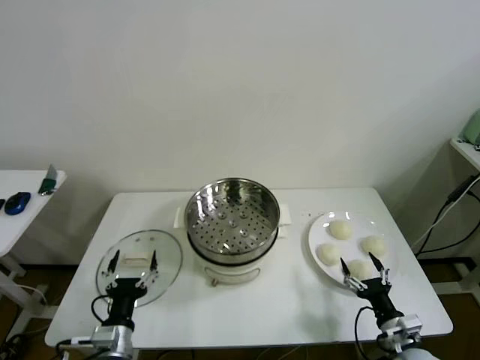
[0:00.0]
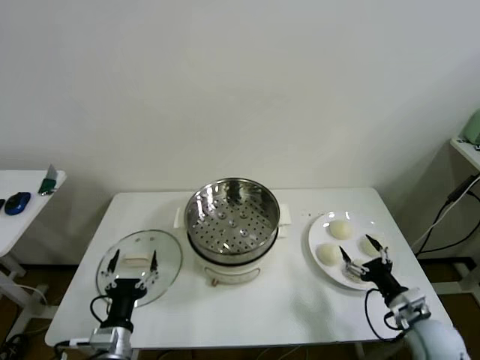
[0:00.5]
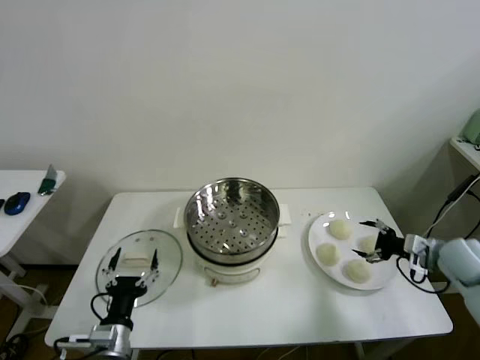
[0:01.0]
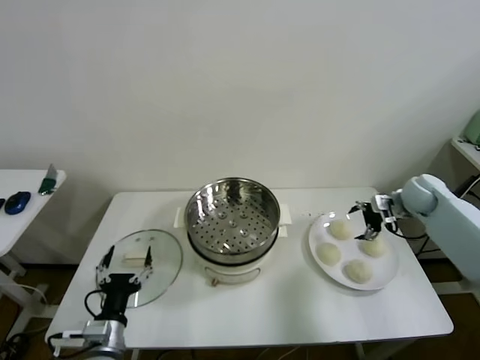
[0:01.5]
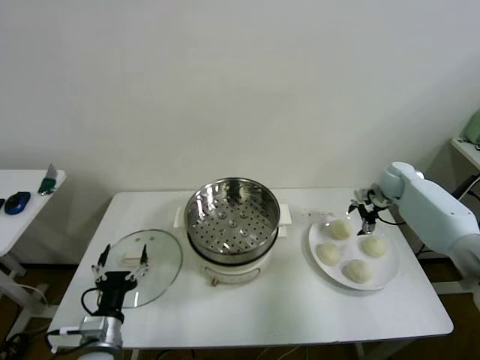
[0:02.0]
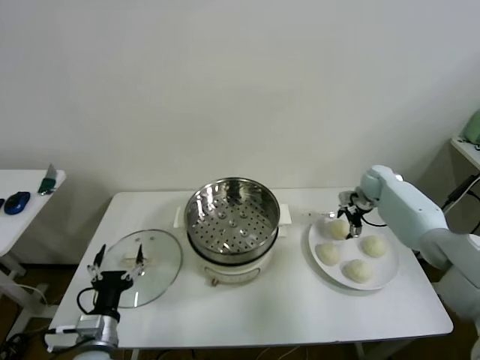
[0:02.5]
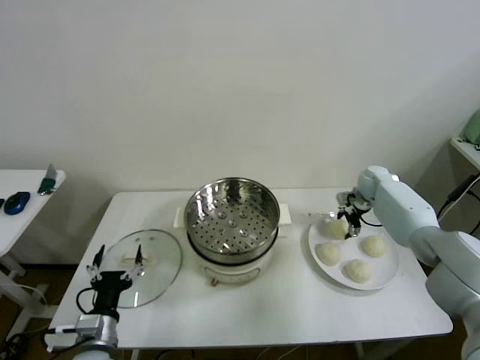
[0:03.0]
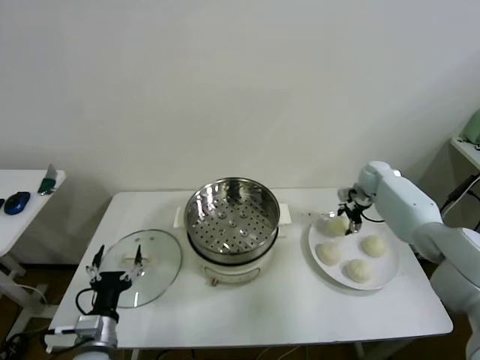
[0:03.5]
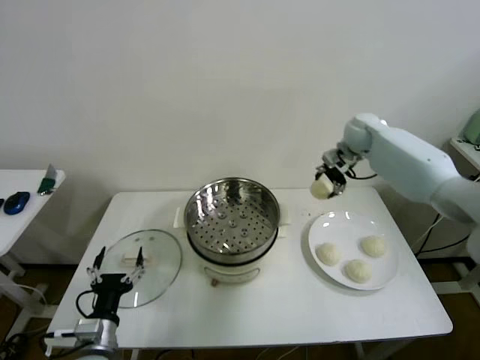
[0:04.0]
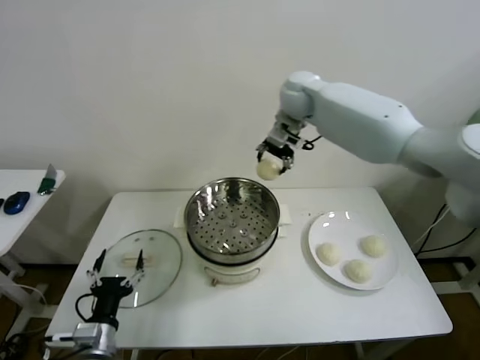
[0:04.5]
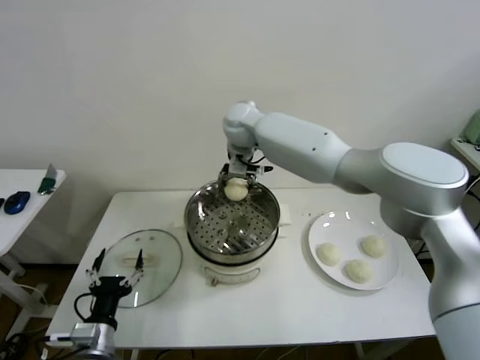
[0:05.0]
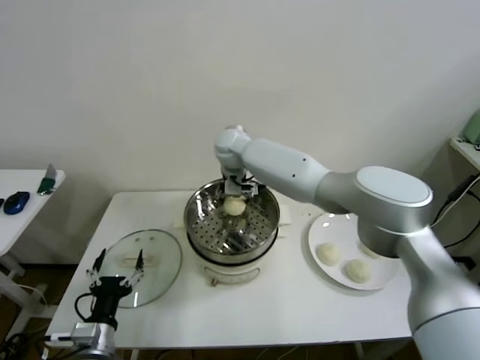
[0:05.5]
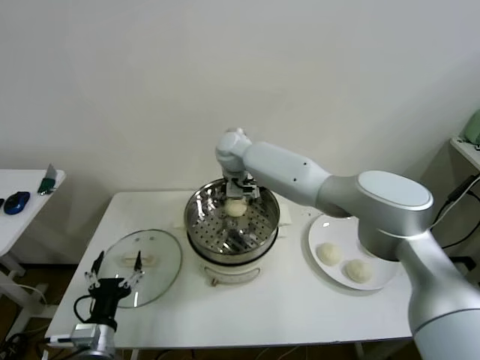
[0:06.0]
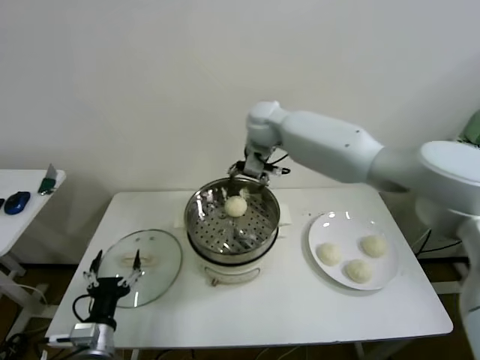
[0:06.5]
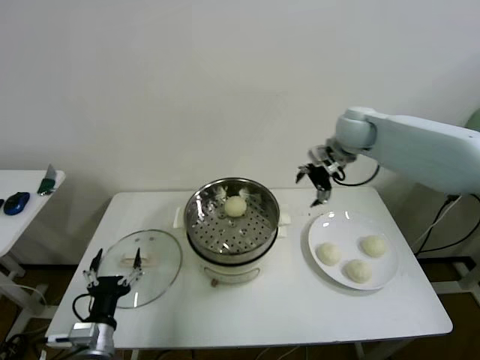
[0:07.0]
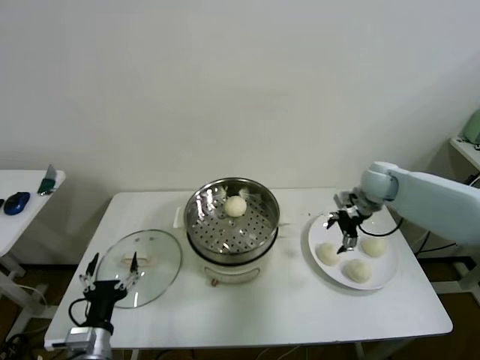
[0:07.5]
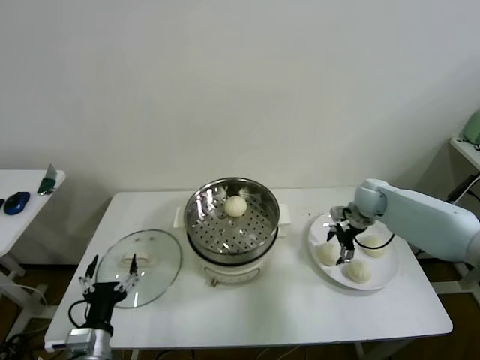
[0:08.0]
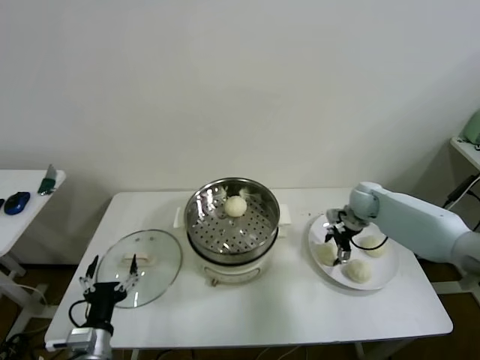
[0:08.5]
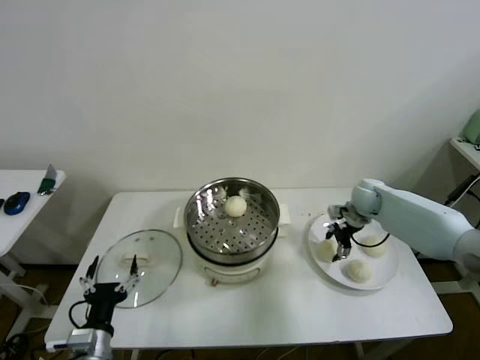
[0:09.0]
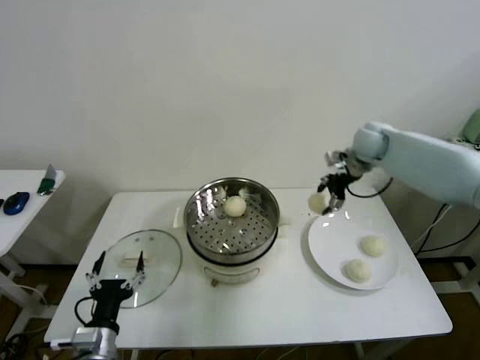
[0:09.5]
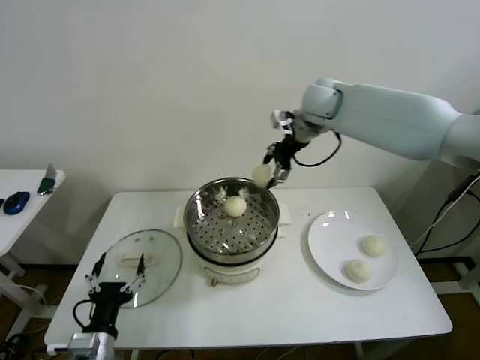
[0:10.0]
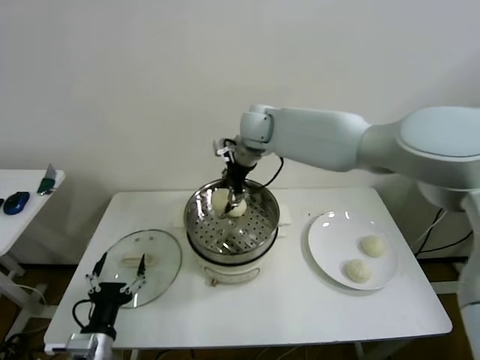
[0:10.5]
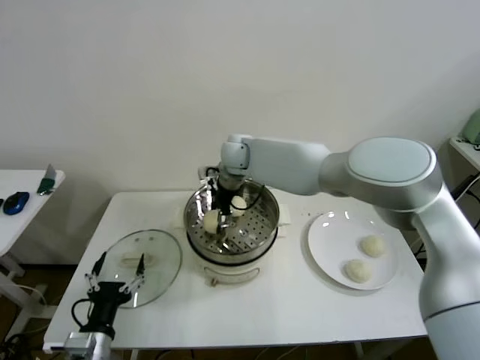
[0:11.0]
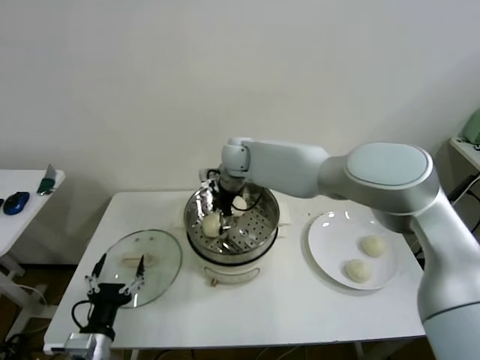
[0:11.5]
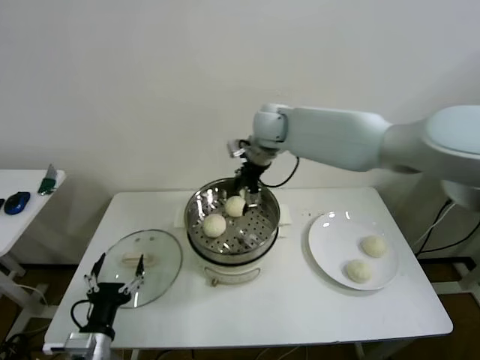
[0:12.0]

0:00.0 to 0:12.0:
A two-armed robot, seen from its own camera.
Step, 0:00.0 to 0:03.0: Grasp the baozi in the plate with right gripper.
Step, 0:03.5 to 0:05.5: Place the baozi on the steamer with right gripper.
Step, 0:06.0 to 0:08.5: Grasp the baozi in the plate with right gripper.
Step, 0:09.0 to 0:11.0: Place the baozi on the steamer with right gripper.
0:02.0 to 0:04.0: The right gripper moves upward and to the left, approximately 25 cm.
0:04.0 to 0:06.0: The right gripper goes about 30 cm to the left.
0:06.0 to 0:08.0: The right gripper heads to the right, covering some 35 cm.
0:08.0 to 0:10.0: The right gripper shifts some 30 cm upward and to the left.
0:10.0 to 0:12.0: The right gripper shifts about 5 cm to the left.

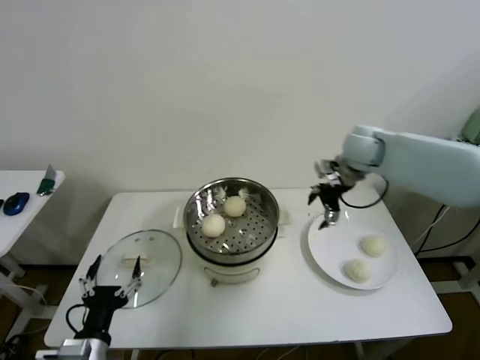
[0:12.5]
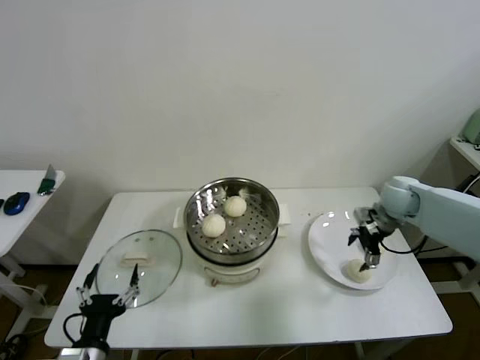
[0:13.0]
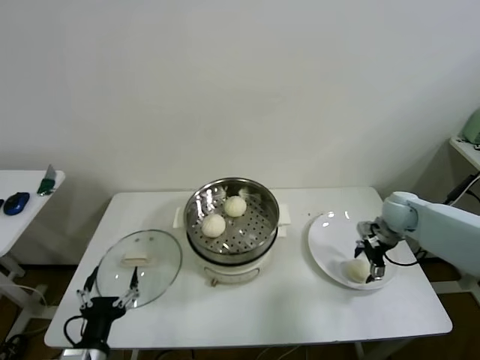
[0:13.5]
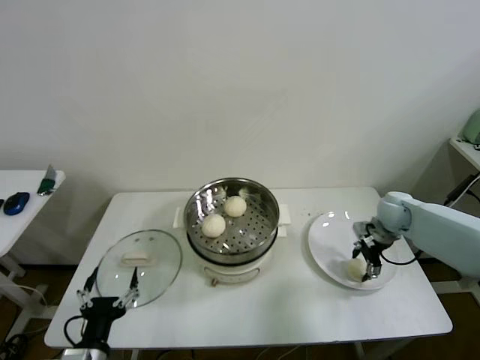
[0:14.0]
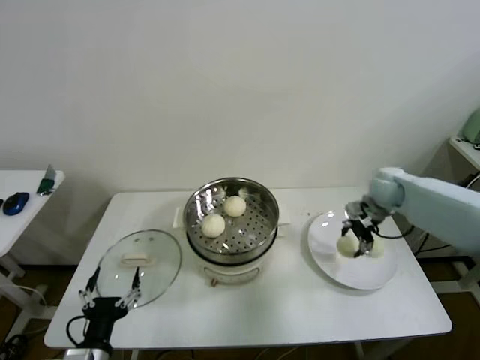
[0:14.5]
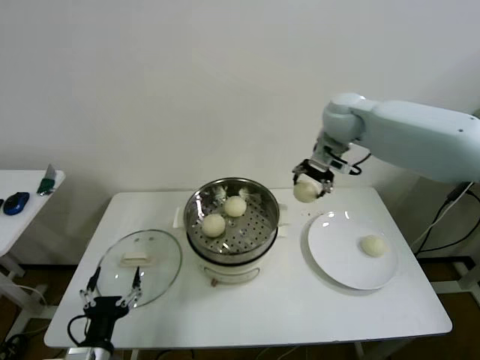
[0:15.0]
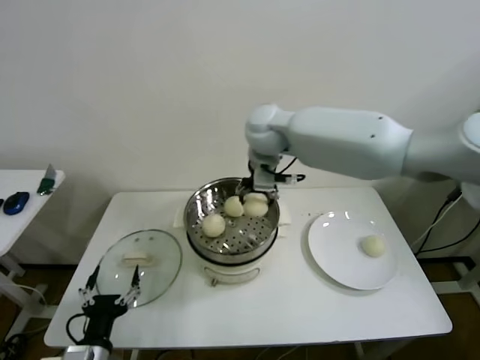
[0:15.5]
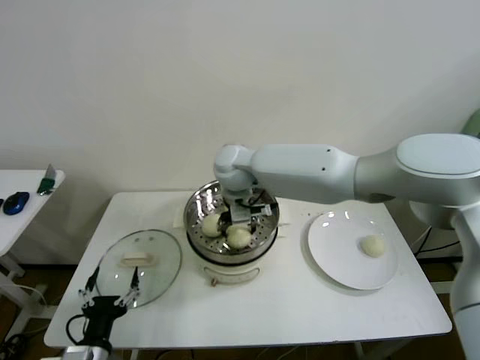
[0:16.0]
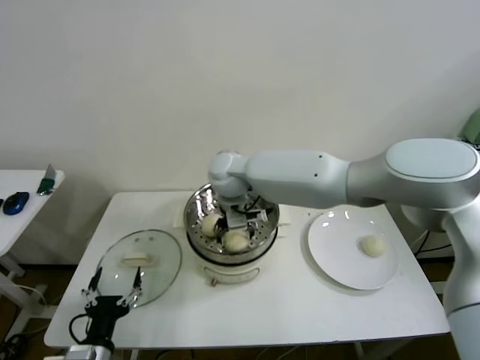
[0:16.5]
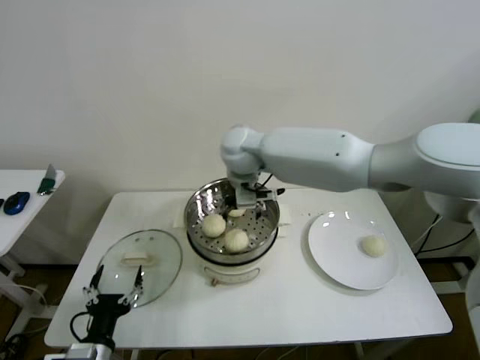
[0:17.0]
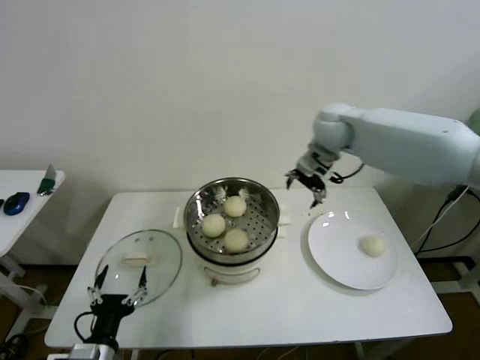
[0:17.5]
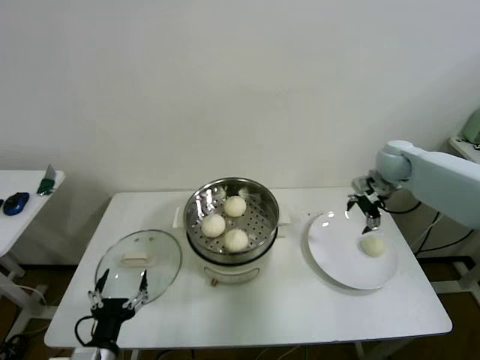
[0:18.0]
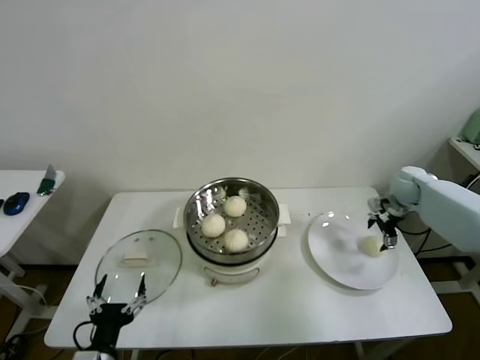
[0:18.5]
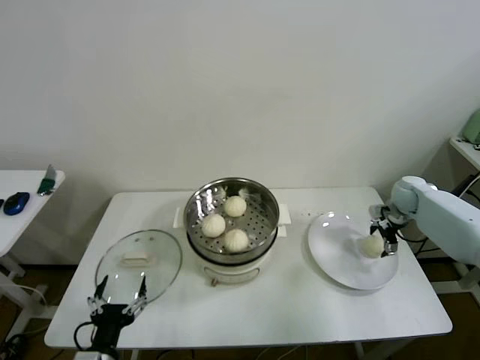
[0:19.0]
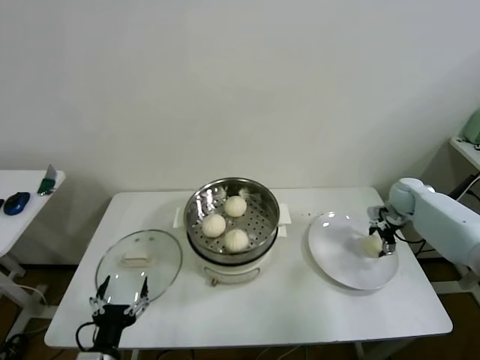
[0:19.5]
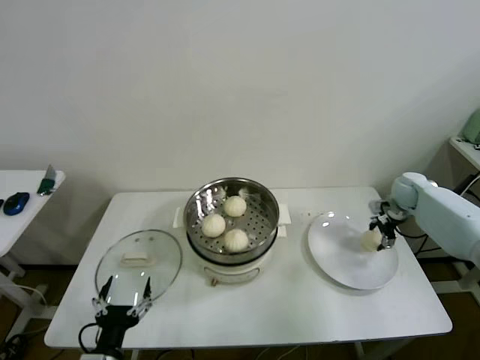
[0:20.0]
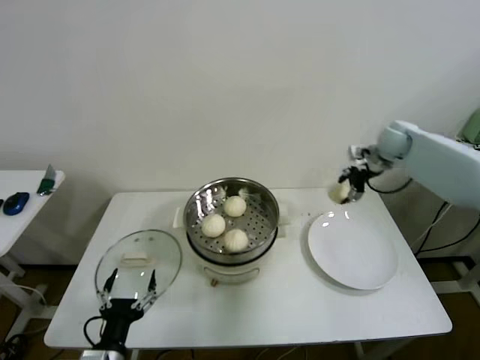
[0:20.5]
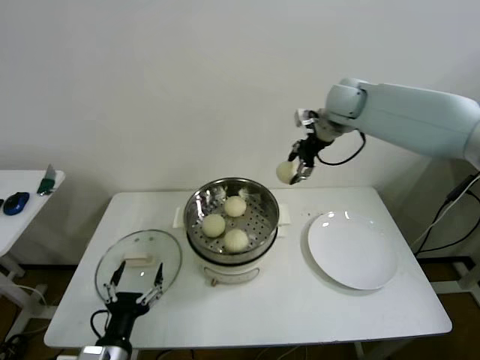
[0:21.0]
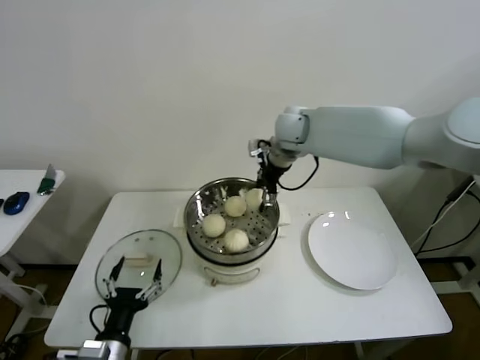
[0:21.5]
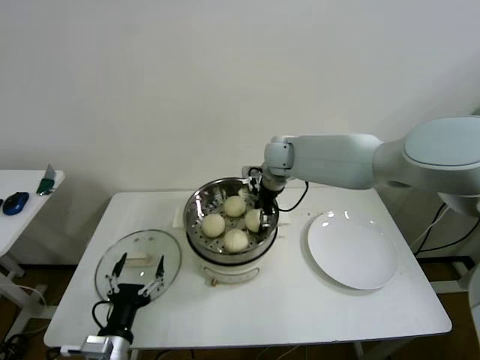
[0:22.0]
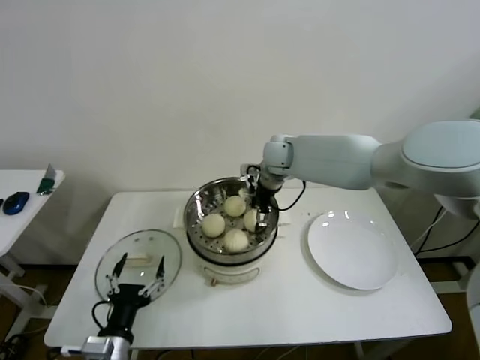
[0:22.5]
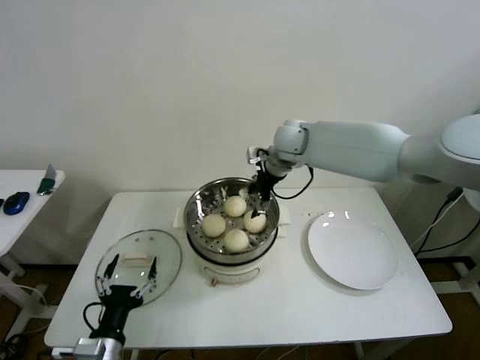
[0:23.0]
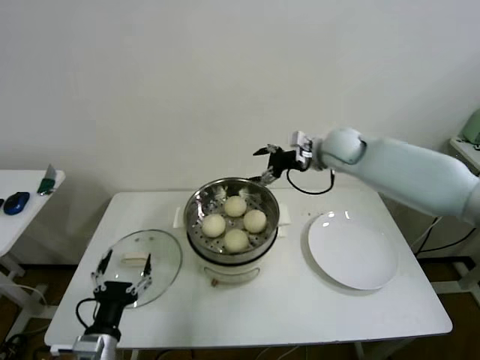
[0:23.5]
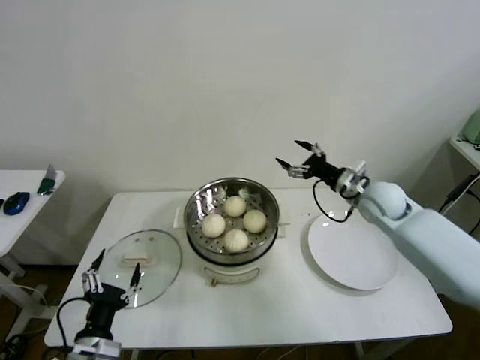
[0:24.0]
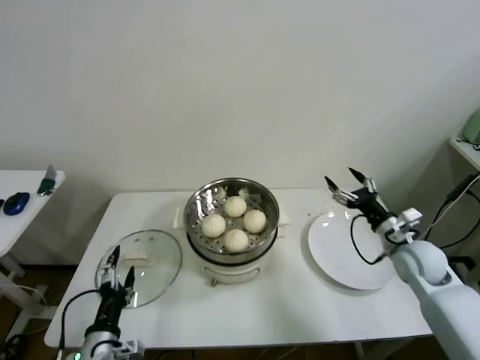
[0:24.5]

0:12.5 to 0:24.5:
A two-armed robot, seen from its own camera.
Step, 0:14.0 to 0:16.0: Place the baozi on the steamer with right gripper.
Step, 0:16.5 to 0:19.5: Grasp the baozi in the plate with right gripper.
Step, 0:20.0 to 0:22.0: Place the baozi on the steamer with right gripper.
0:12.5 to 0:14.5: The right gripper travels downward and to the right by roughly 10 cm.
0:14.5 to 0:16.5: The right gripper shifts about 40 cm to the left.
0:16.5 to 0:18.5: The right gripper heads to the right, covering approximately 50 cm.
0:18.5 to 0:20.5: The right gripper is displaced upward and to the left by about 15 cm.
0:20.5 to 0:22.5: The right gripper heads to the left, covering roughly 30 cm.
0:22.5 to 0:24.5: The right gripper travels to the right, backward and downward by some 40 cm.

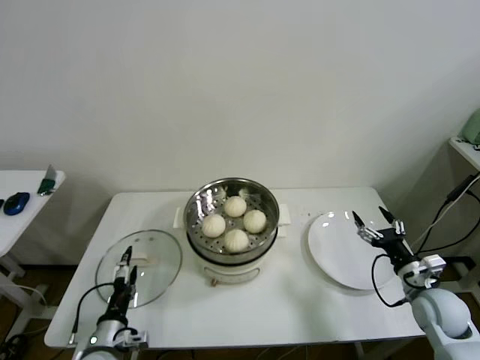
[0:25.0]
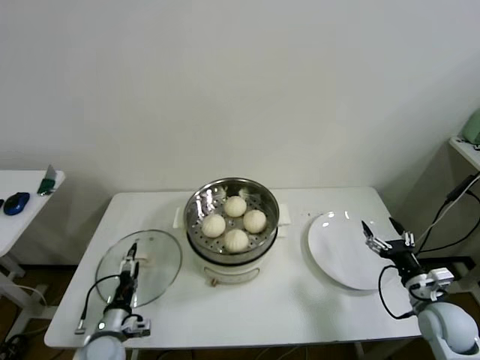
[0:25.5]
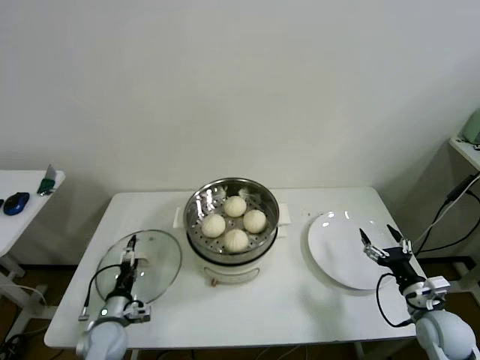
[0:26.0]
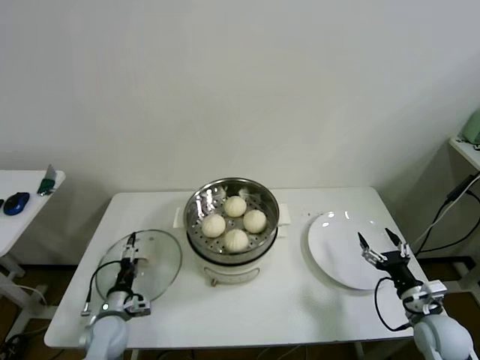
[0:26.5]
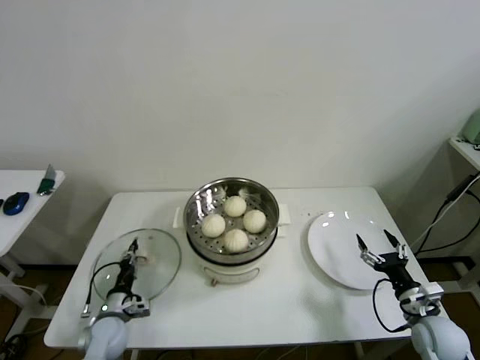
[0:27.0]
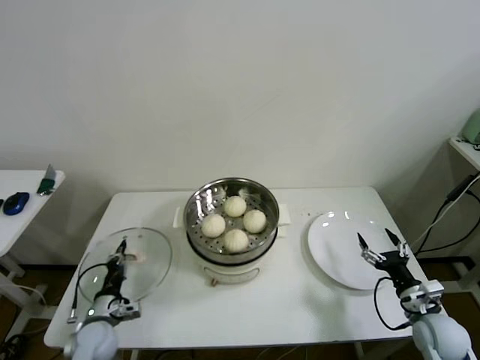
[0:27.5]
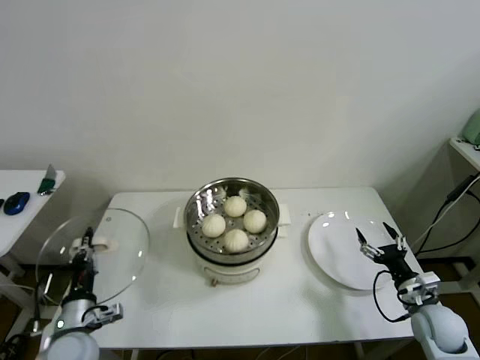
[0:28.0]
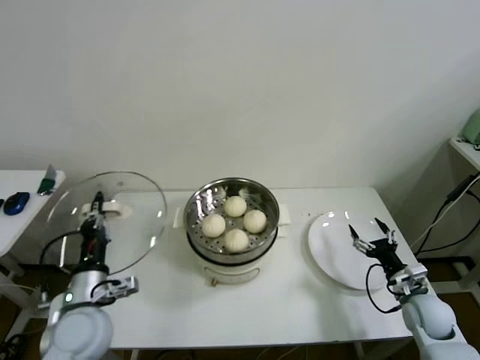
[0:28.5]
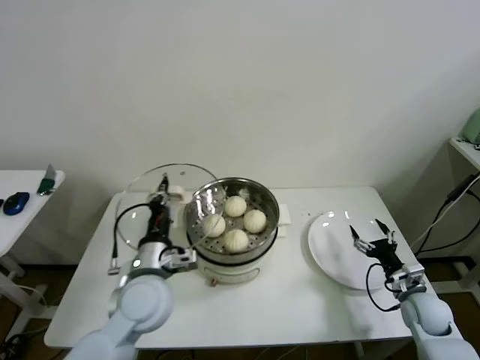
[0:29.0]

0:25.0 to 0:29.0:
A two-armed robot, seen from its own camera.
Step, 0:25.0 to 0:27.0: Grasp the pot lid with left gripper.
0:25.0 to 0:27.0: The left gripper travels forward and downward by about 10 cm, and closes; the right gripper moves approximately 5 cm.
0:27.0 to 0:29.0: The right gripper is displaced forward by some 5 cm. Meanwhile the left gripper moves upward and to the right, approximately 25 cm, and closes.
